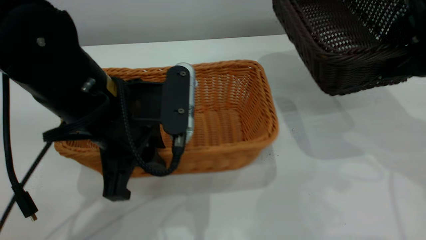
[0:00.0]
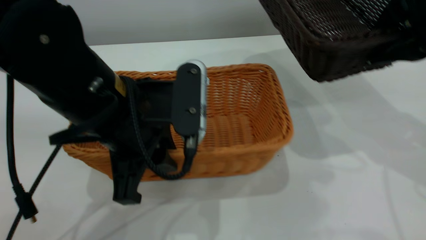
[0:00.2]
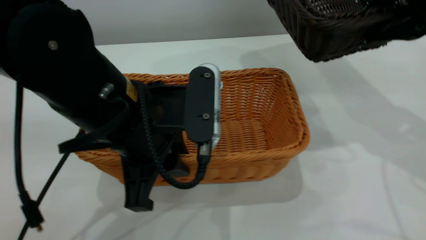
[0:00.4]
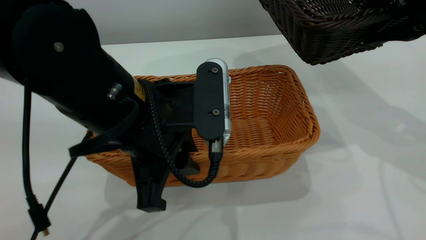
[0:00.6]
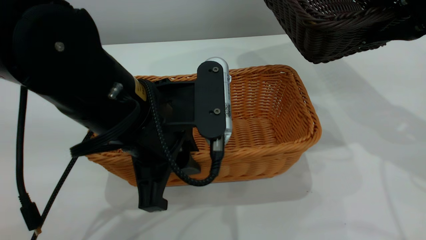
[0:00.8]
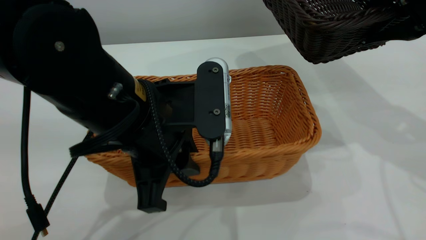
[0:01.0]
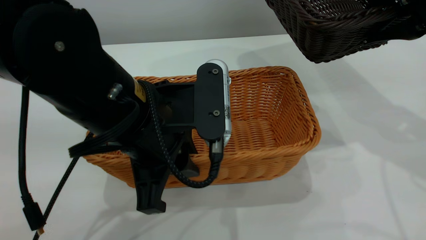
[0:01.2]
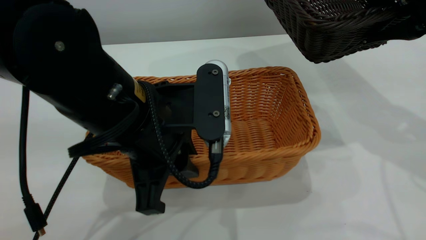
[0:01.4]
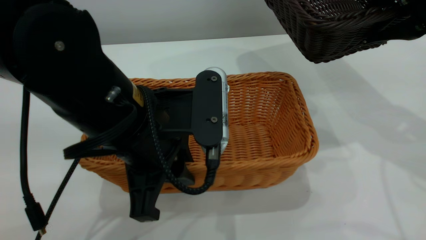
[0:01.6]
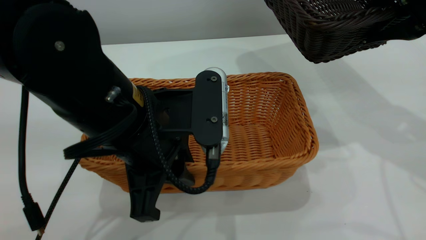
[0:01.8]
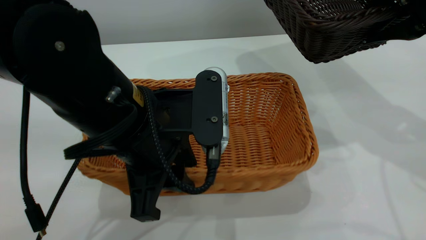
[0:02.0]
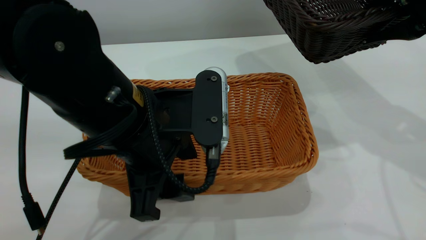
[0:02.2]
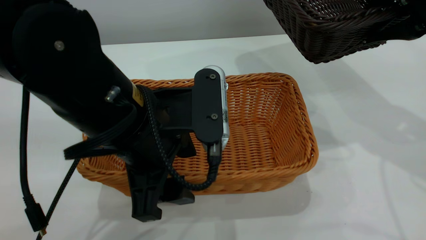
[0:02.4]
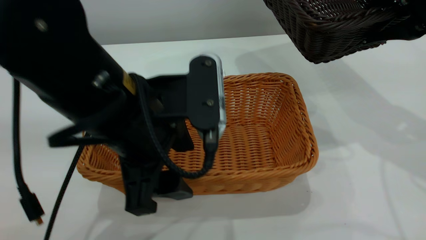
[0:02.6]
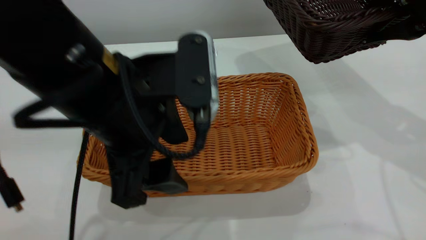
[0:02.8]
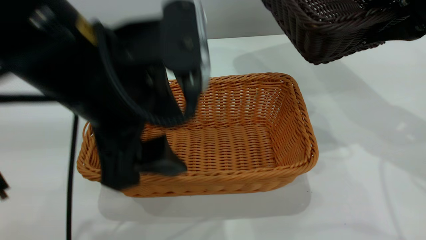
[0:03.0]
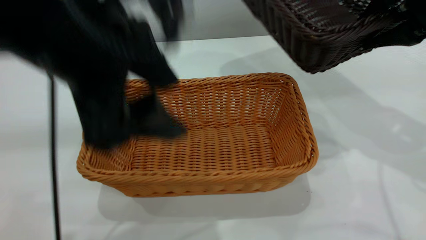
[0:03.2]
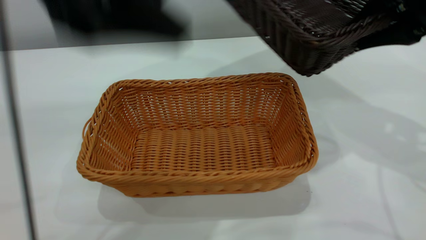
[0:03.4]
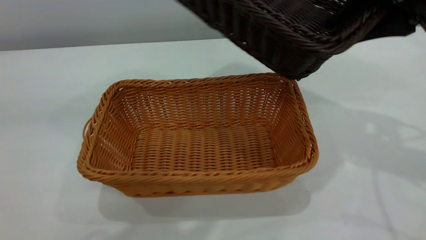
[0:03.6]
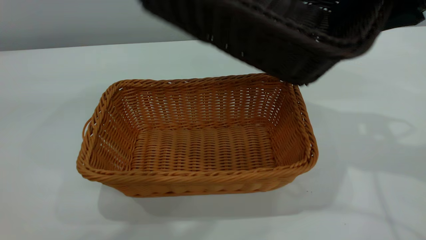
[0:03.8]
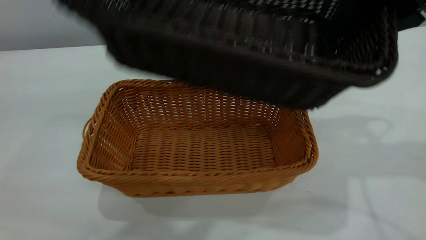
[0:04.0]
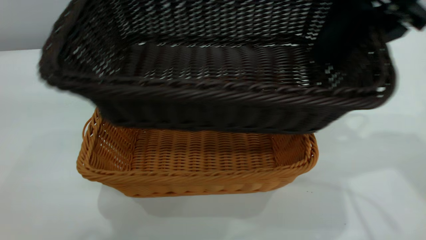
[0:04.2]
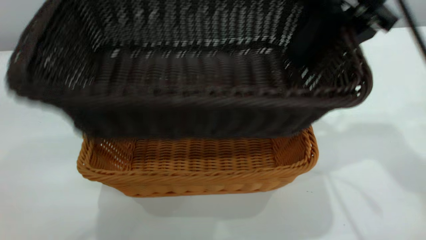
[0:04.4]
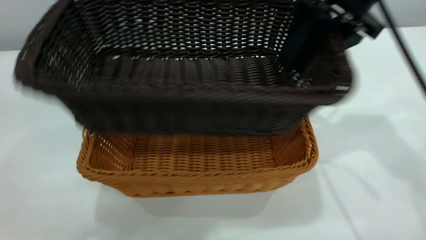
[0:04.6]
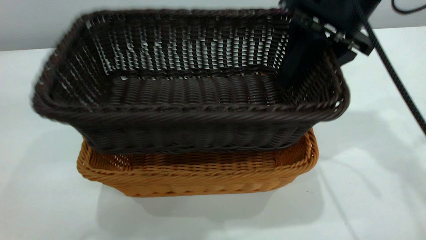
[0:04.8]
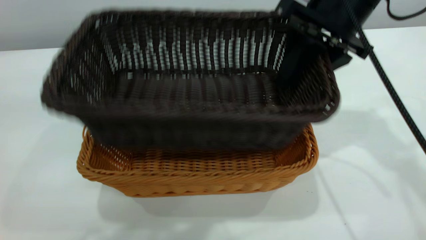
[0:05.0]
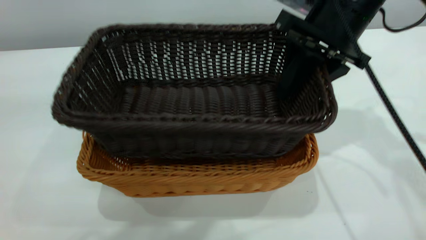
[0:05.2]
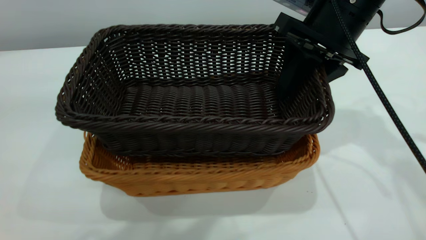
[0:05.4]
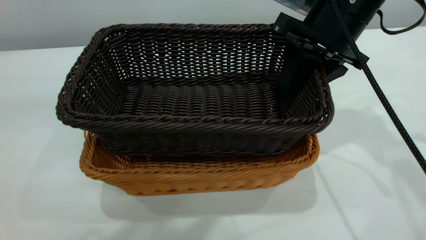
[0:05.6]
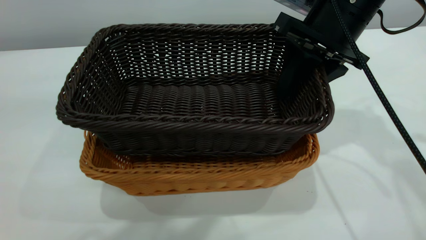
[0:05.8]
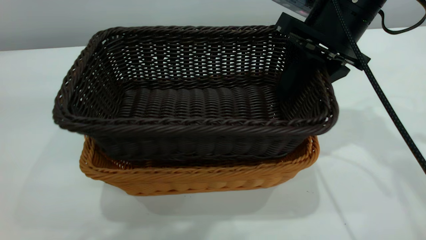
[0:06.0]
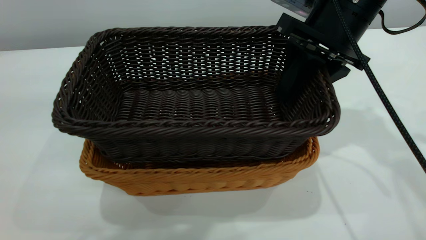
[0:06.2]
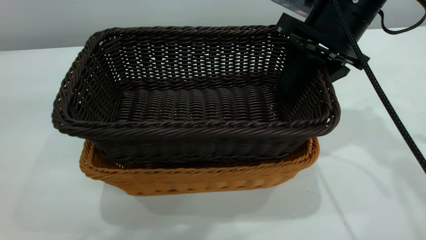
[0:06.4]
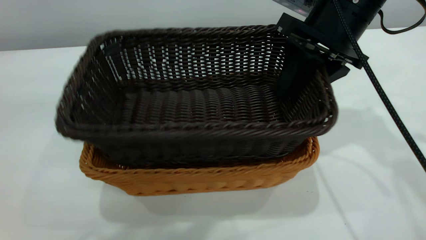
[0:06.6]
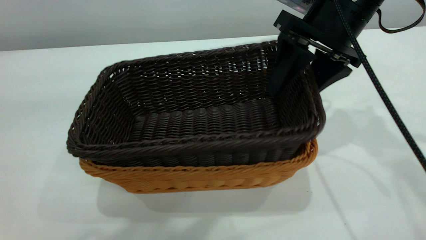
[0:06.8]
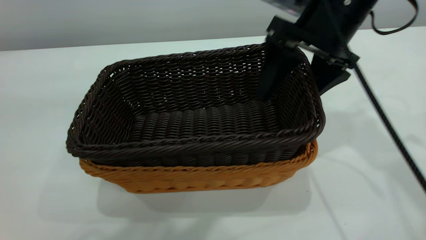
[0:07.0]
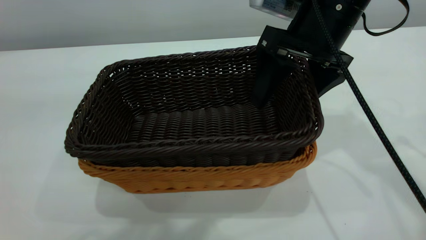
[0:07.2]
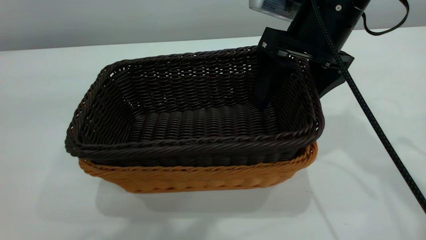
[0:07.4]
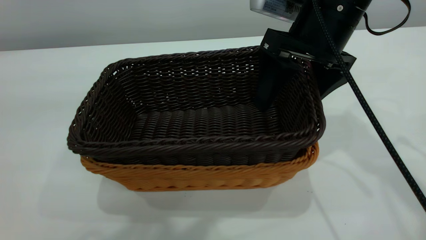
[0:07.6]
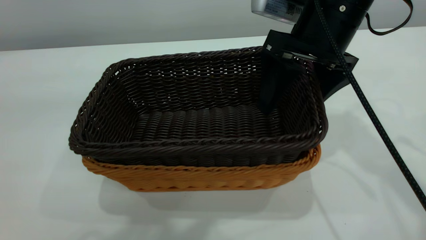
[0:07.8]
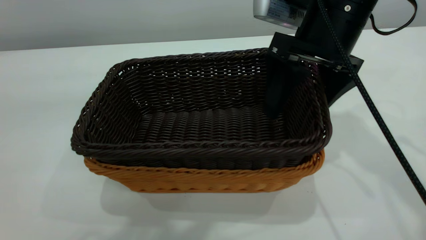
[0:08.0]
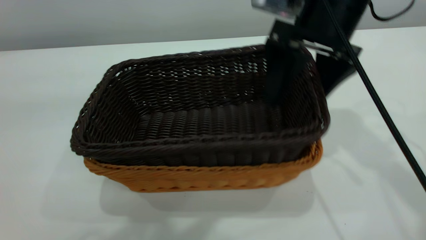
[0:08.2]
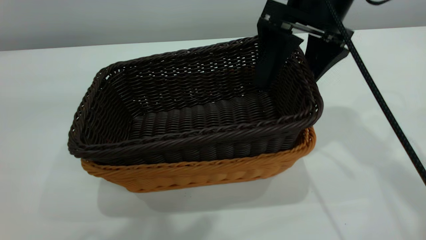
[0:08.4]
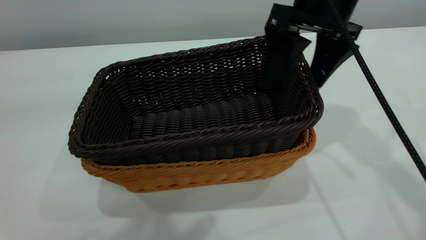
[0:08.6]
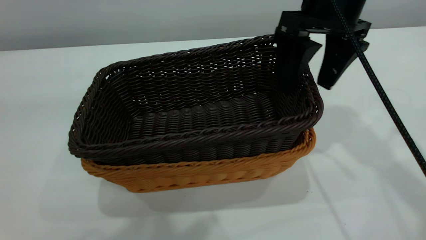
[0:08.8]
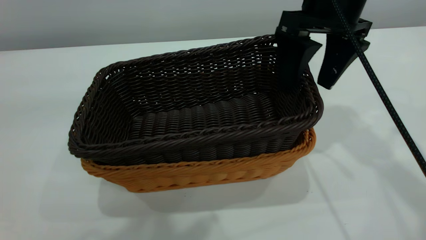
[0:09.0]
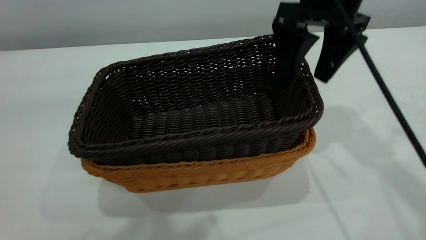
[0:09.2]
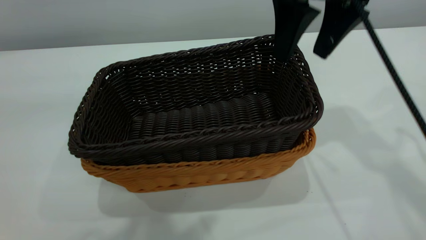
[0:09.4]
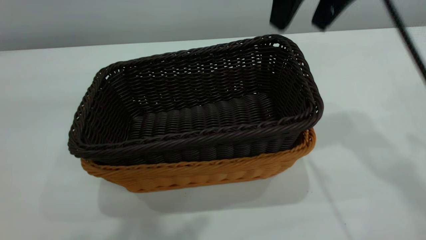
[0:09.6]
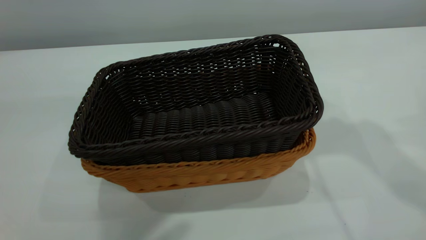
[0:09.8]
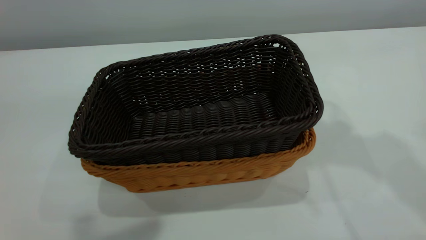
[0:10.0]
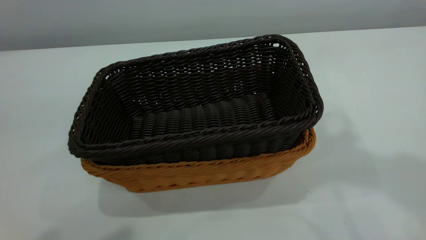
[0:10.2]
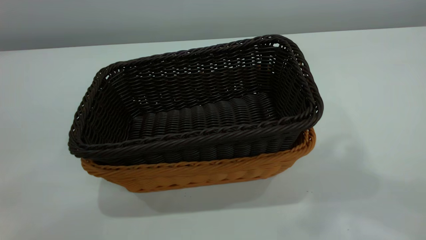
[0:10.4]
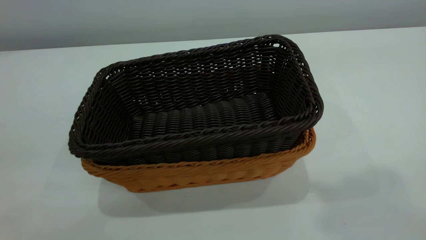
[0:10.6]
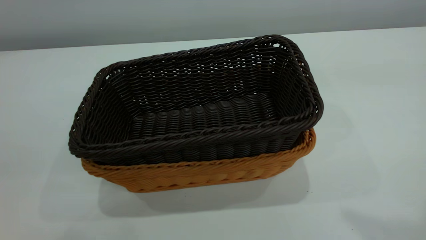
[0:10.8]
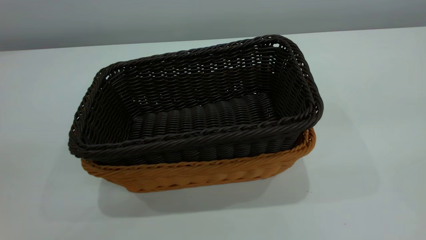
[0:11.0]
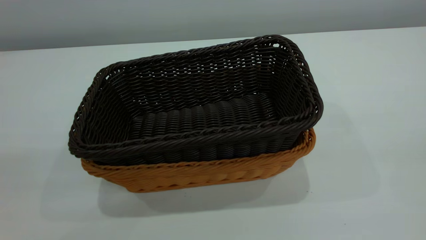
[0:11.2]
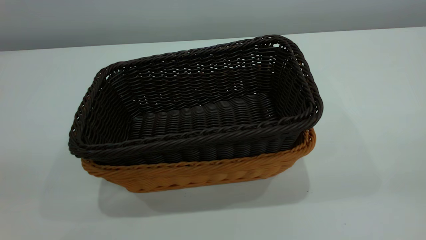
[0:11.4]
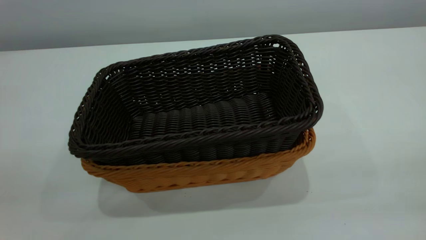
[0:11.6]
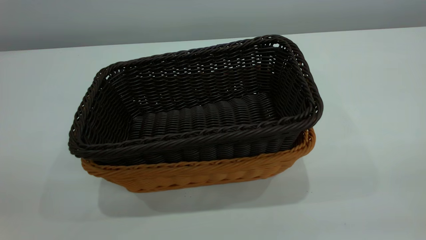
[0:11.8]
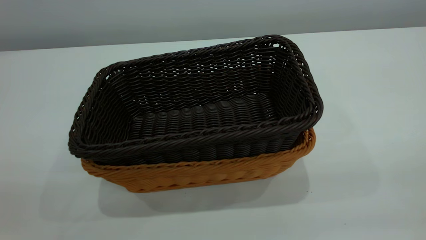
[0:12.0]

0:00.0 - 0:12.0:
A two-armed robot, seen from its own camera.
Task of the whole recording: the left gripper grasp the brown basket and place it in the center of the table, the right gripper grasp the black basket and place it inside the brown one.
Step, 0:00.0 - 0:02.8: Place the light-colored basket in the center.
Step, 0:03.2 - 0:09.4: Place the dark basket on top of the light basket.
0:01.6 - 0:03.0: The left gripper is displaced upward by about 5 cm, and opens.
0:03.0 - 0:04.4: The left gripper goes about 20 cm upward. Meanwhile the right gripper heads to the left, covering roughly 10 cm.
0:04.4 - 0:06.0: The right gripper moves downward, about 5 cm.
0:06.0 - 0:07.6: The right gripper opens up.
0:07.6 - 0:09.0: The grippers stay close to where they were, moving slightly.
0:09.0 - 0:10.4: The right gripper heads upward and backward, covering approximately 30 cm, and closes up; the left gripper goes approximately 10 cm to the left and backward, and closes its fingers.

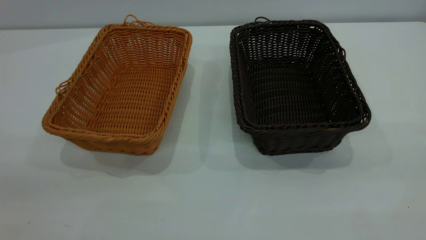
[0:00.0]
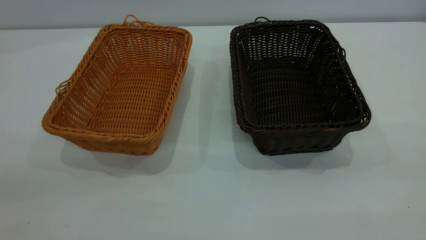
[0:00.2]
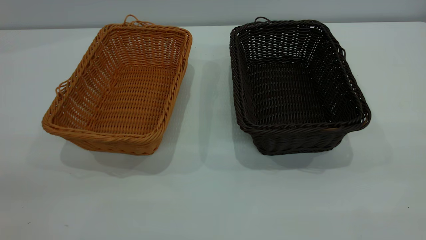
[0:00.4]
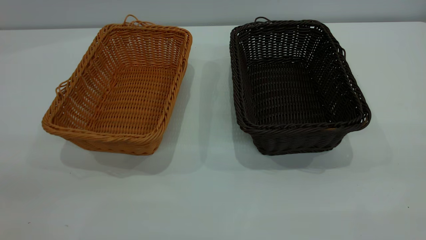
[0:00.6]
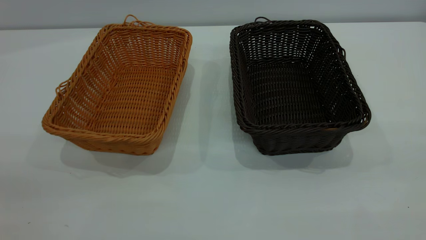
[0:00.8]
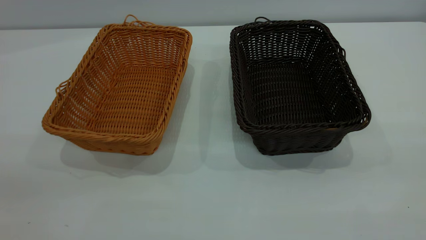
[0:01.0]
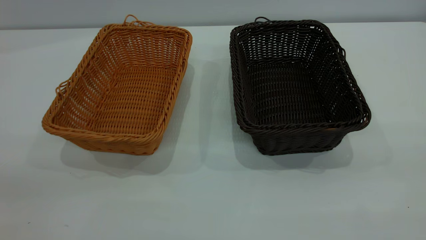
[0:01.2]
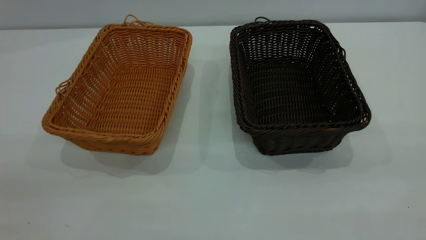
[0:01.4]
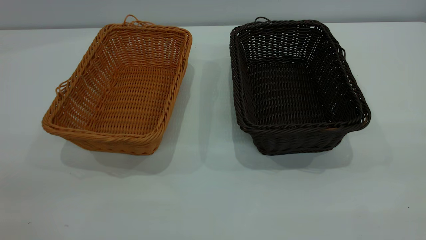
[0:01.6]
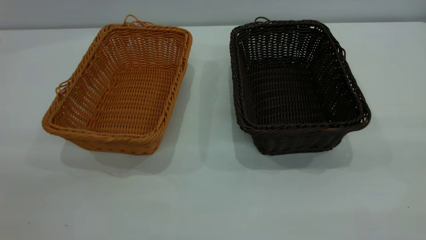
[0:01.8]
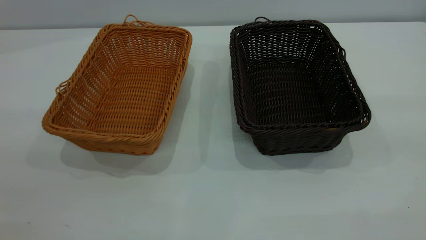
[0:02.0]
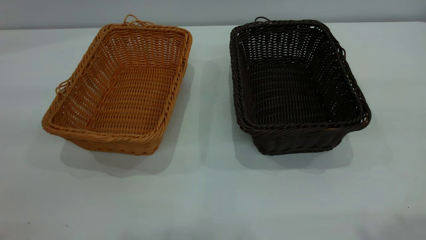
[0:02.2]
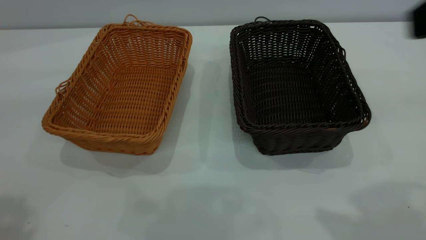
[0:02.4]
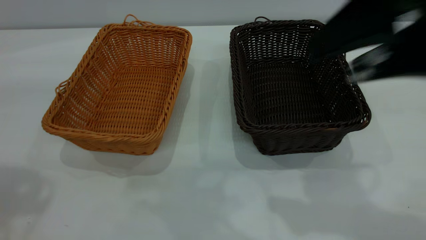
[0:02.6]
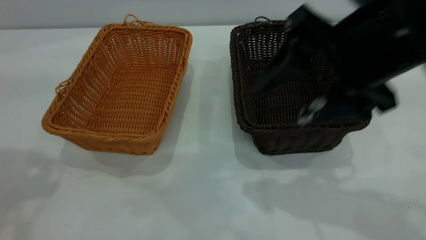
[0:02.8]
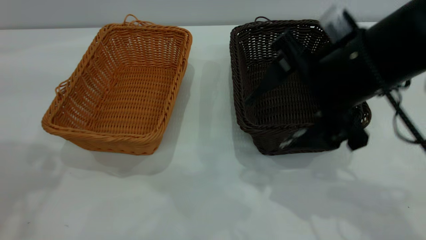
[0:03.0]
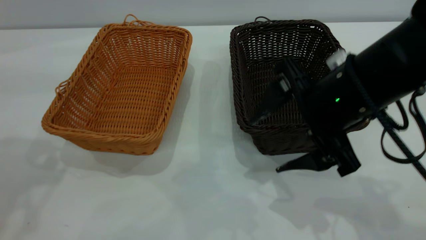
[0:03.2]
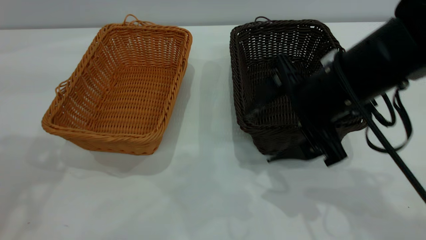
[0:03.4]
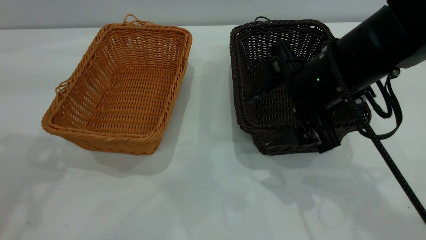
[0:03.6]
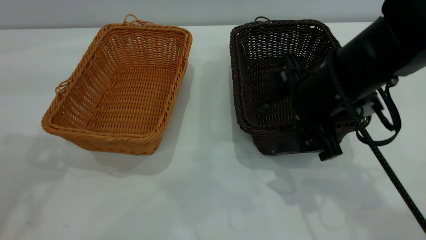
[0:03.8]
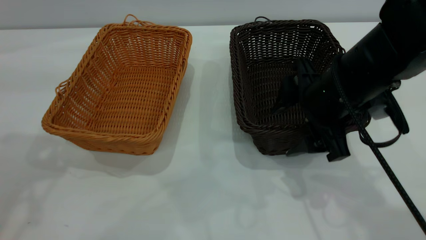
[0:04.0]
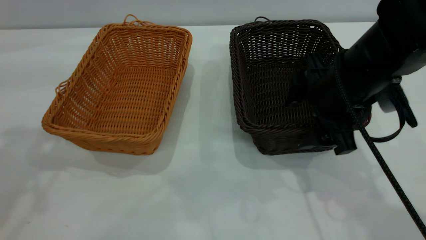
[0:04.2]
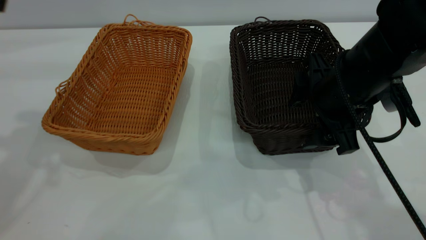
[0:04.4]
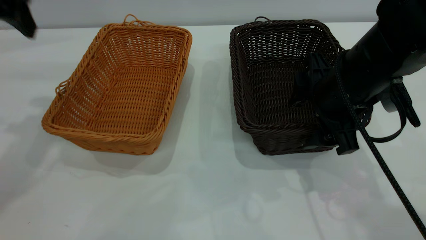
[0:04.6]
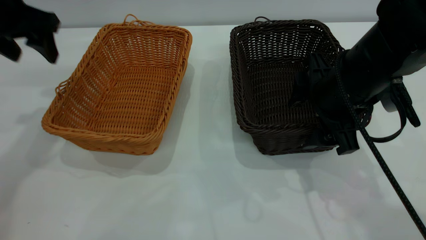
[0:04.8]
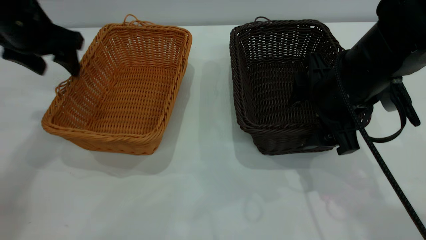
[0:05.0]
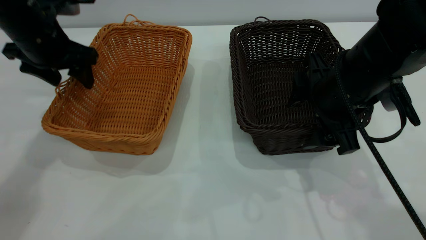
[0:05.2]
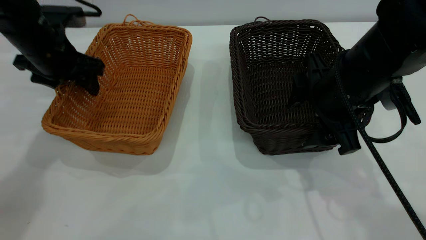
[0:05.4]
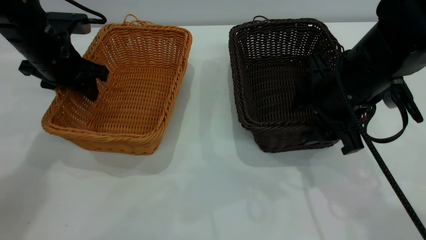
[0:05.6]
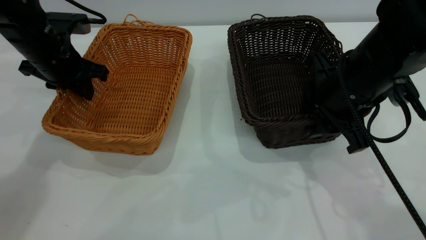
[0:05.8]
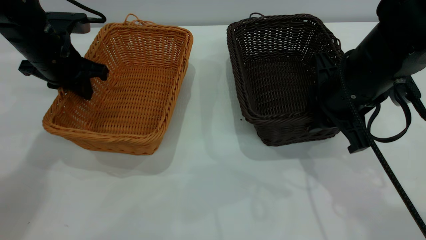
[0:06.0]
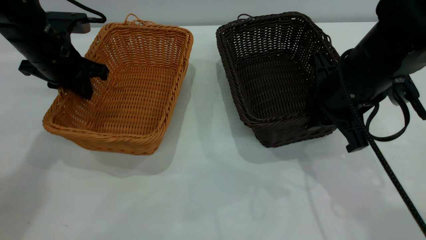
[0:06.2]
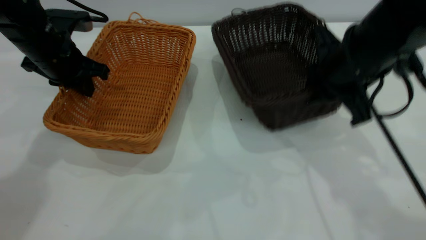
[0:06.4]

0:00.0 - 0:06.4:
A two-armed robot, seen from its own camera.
Task of the whole recording: the left gripper grasp the brown basket and place it in the center of the table, the right gripper grasp the black basket and place it inside the brown one.
0:00.0 - 0:01.6: Both grippers stay put.
0:01.6 - 0:03.2: The right gripper is displaced forward, downward and to the left by roughly 35 cm.
0:03.2 - 0:04.8: The right gripper moves some 5 cm. Meanwhile the left gripper moves forward and downward, about 20 cm.
0:04.8 - 0:06.4: The left gripper travels downward by about 10 cm, and closes up. Meanwhile the right gripper closes its fingers.
